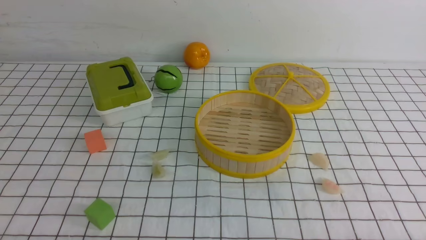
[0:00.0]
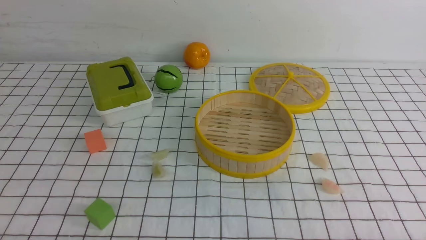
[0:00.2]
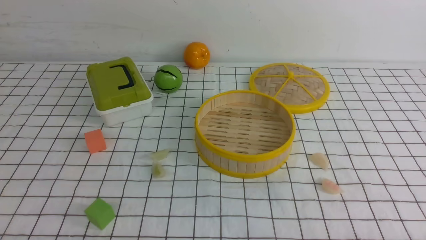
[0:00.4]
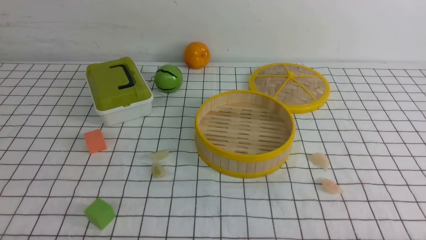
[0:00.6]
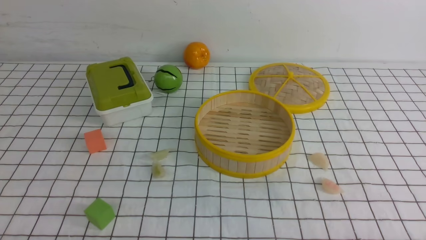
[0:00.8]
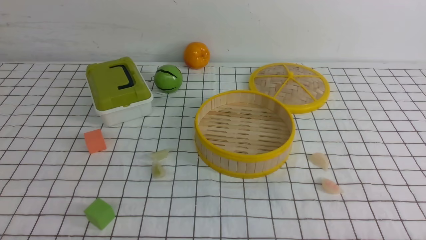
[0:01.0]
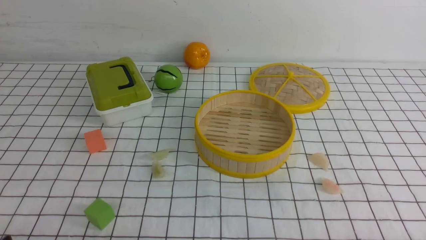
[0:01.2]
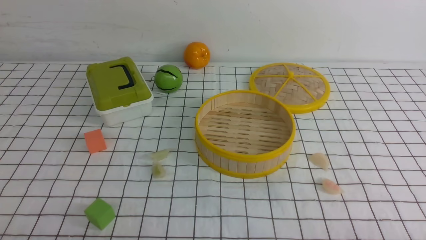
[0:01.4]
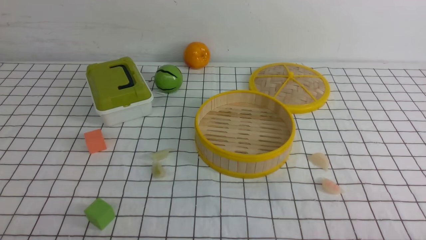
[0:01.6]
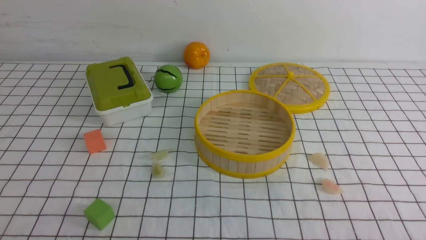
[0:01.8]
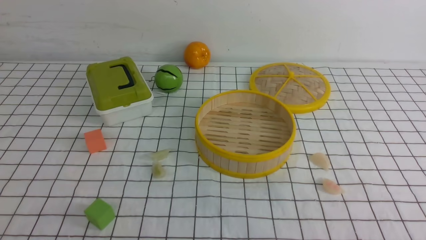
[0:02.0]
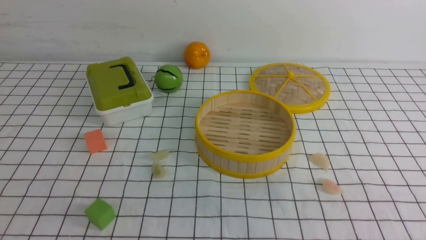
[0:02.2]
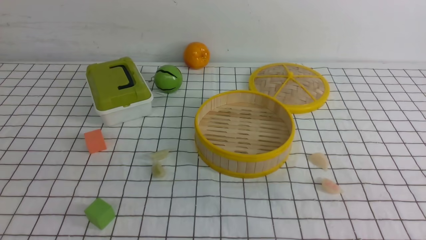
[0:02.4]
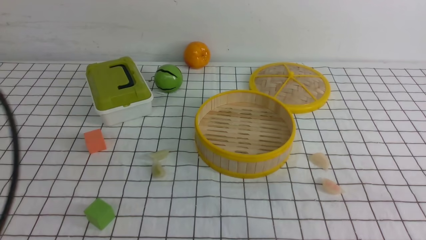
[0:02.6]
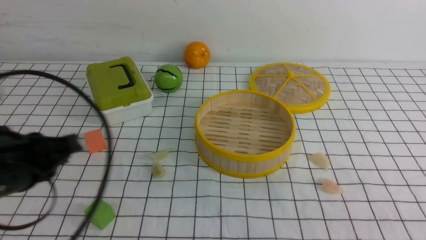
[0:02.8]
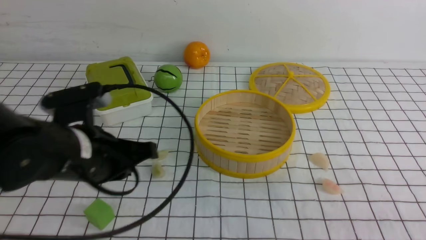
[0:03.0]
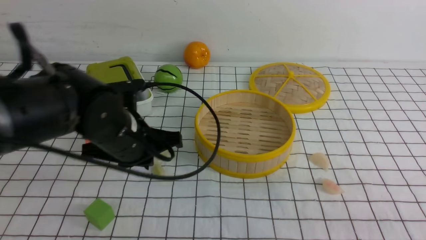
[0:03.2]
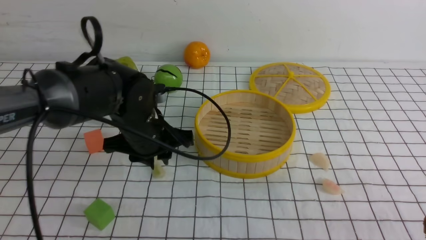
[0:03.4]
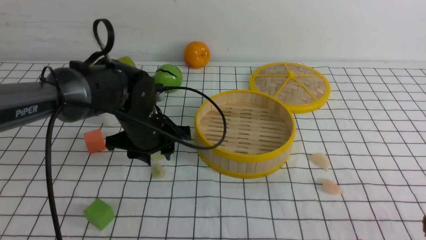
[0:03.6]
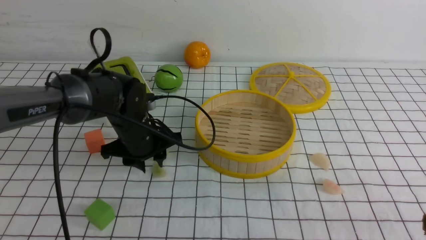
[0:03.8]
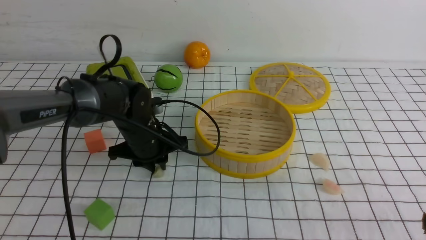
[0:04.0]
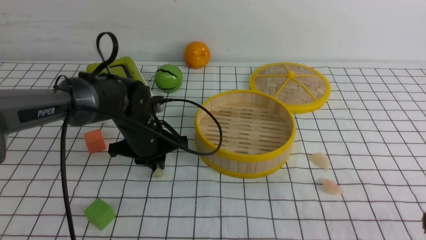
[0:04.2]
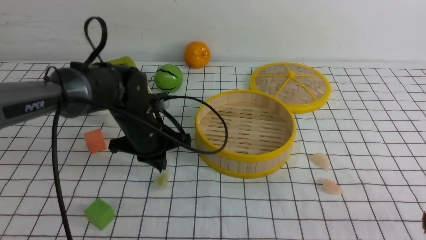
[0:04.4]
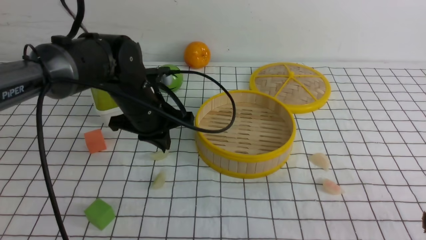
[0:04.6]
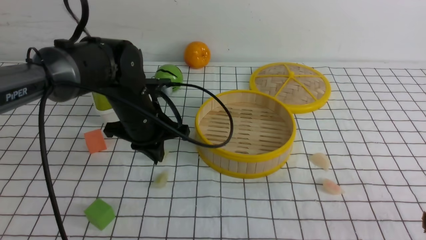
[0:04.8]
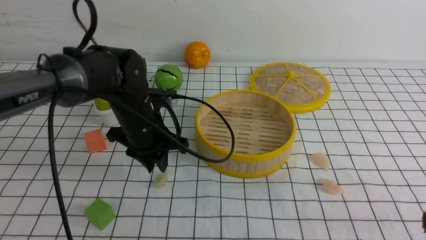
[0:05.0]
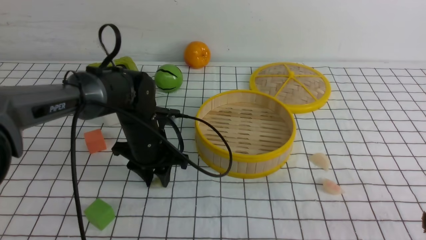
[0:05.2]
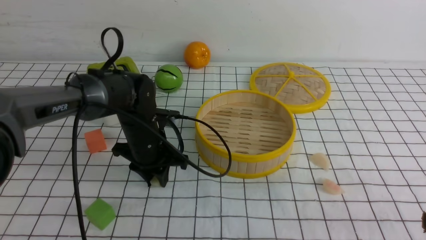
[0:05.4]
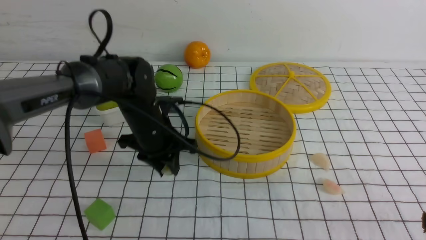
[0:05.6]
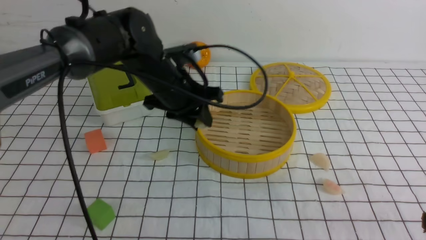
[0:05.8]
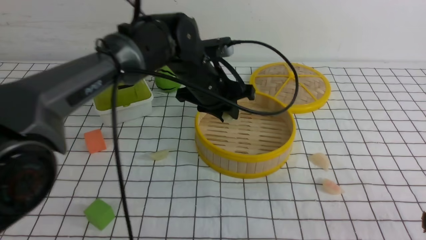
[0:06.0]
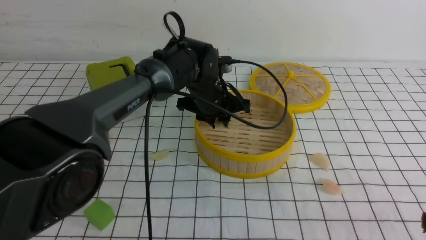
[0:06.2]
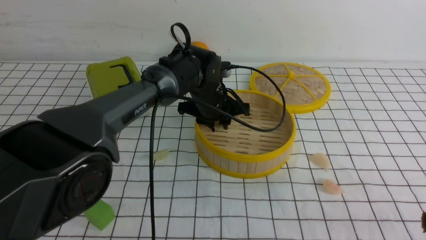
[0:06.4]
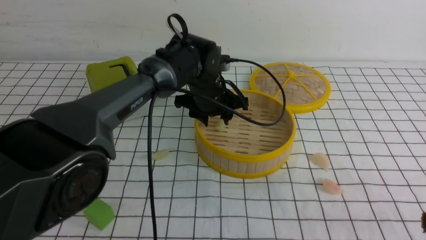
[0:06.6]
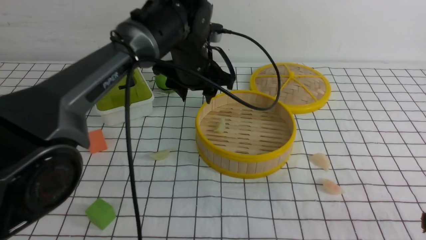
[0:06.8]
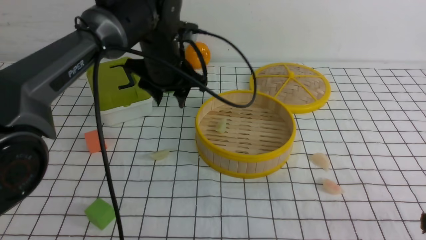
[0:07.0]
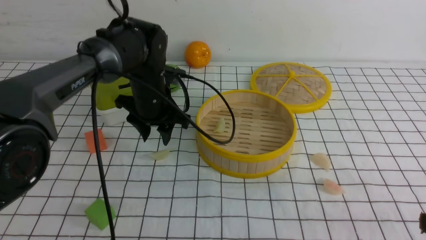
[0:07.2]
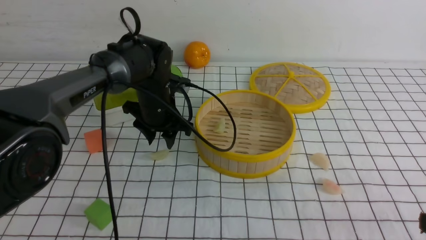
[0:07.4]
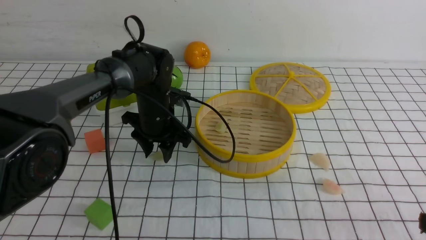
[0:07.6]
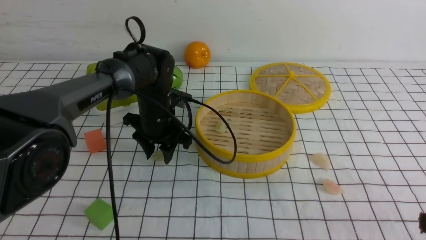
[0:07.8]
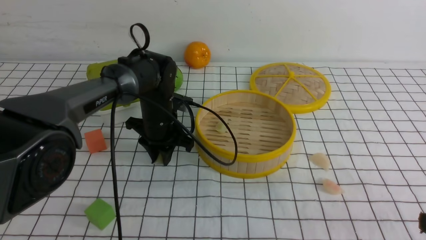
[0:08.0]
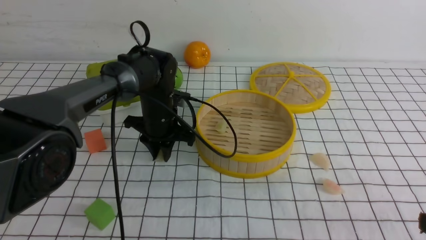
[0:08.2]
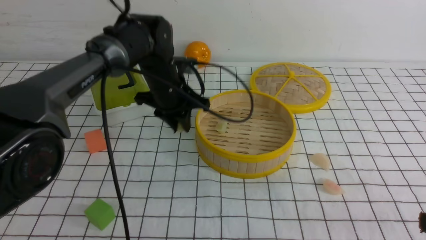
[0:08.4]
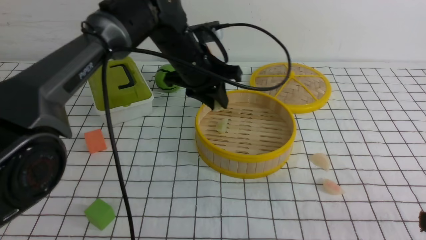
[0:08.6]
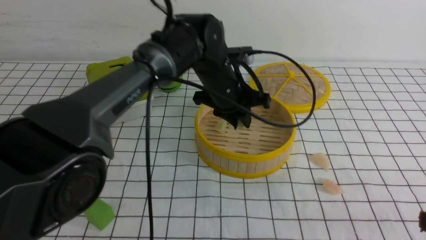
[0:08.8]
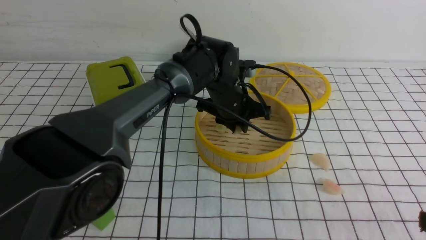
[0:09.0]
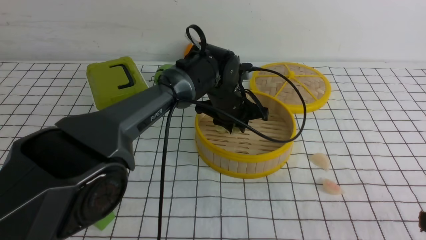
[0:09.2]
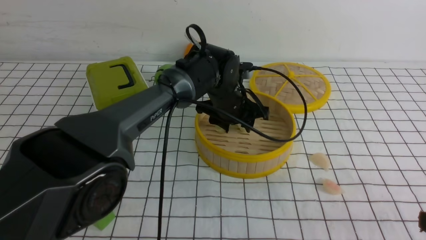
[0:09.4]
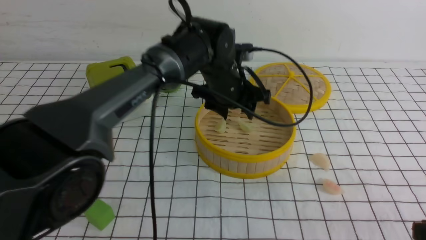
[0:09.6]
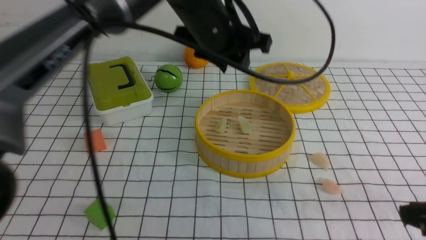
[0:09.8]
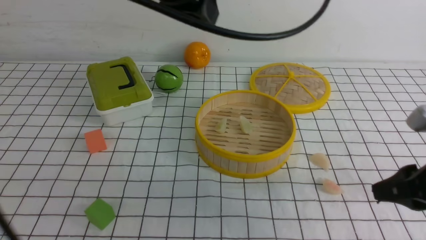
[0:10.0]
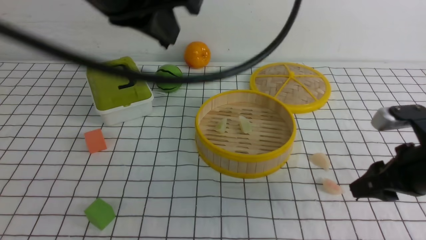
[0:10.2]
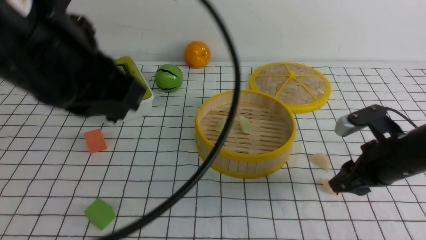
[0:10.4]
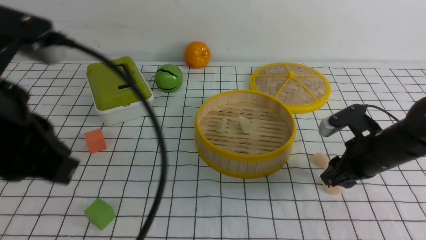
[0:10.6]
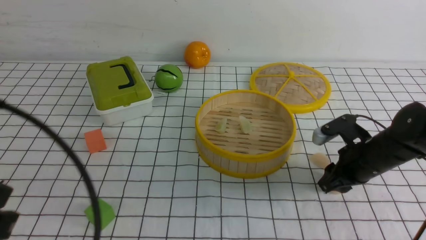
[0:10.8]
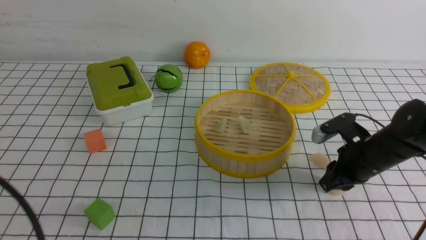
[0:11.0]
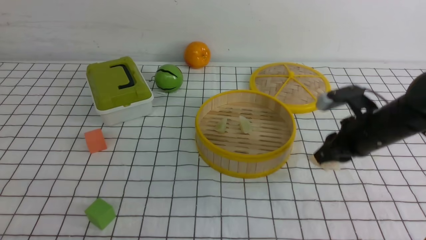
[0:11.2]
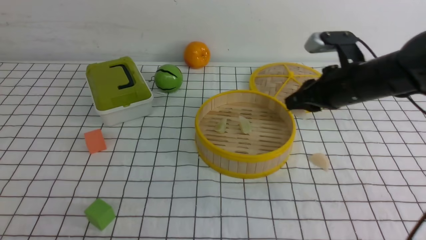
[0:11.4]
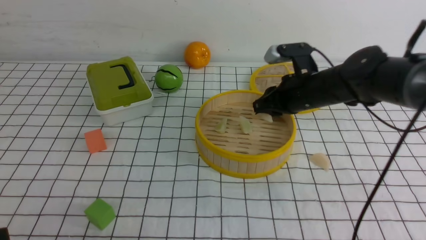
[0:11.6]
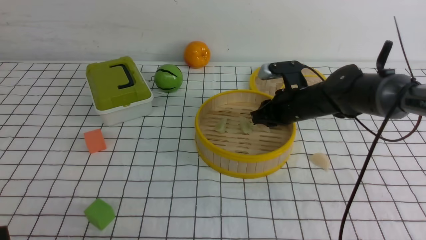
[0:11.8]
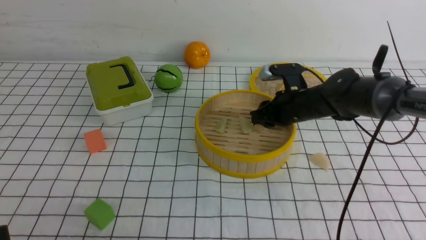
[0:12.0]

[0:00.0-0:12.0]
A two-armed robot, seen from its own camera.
Task of the whole recording: put the dumplings into the steamer on the table with the white tablecloth.
Step, 0:00.0 to 0:05.6: use the left arm to grab a dumpling.
Step, 0:05.8 to 0:06.8: use the left arm to put the dumpling into the steamer.
Step, 0:07.0 to 0:08.4: use the left arm to grab a dumpling.
Step, 0:08.6 to 0:09.8: use the left arm to put the dumpling into the steamer.
Step, 0:10.0 to 0:11.2: use the right arm to grab a dumpling.
0:01.6 to 0:03.0: The left gripper moves forward and to the right, some 25 cm, and closes. Meanwhile the right gripper goes roughly 5 cm forward, and closes its fingers.
0:03.0 to 0:04.4: The left gripper is displaced forward and downward by about 15 cm, and opens, then closes once more.
0:04.4 to 0:06.0: The left gripper goes approximately 10 cm to the right, and opens up.
0:06.0 to 0:07.6: The left gripper travels to the left and downward by about 10 cm, and opens up.
0:07.6 to 0:09.0: The left gripper goes about 15 cm to the right, and closes up.
0:09.0 to 0:10.4: The right gripper travels forward by approximately 20 cm, and opens its fingers; the left gripper is displaced backward, upward and to the left by about 35 cm, and closes up.
0:10.4 to 0:12.0: The left gripper is displaced downward, backward and to the left by roughly 25 cm; the right gripper is displaced forward and to the left by approximately 20 cm.

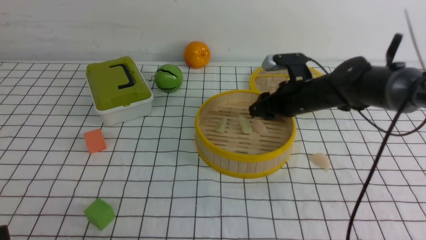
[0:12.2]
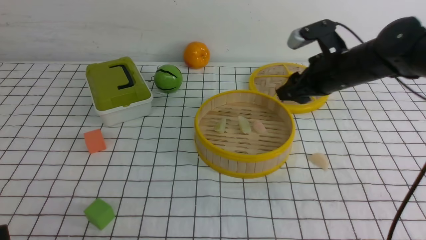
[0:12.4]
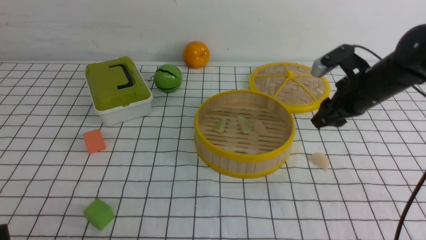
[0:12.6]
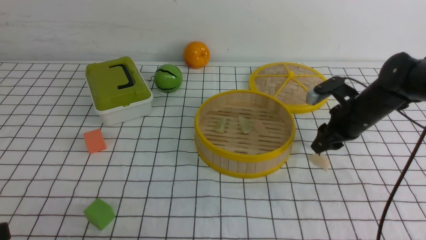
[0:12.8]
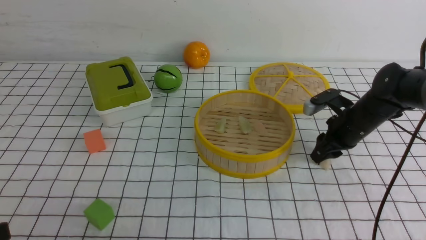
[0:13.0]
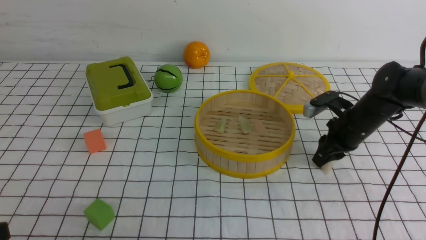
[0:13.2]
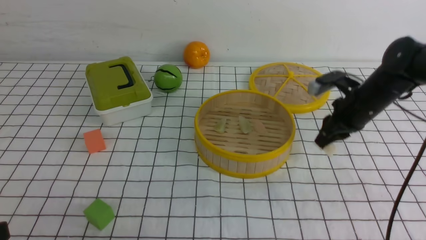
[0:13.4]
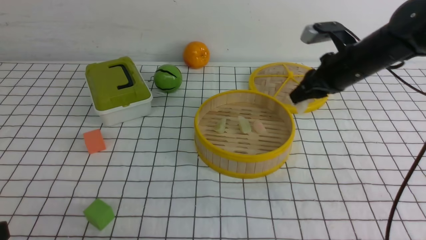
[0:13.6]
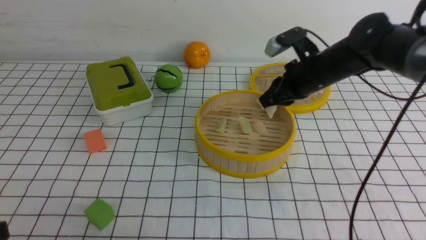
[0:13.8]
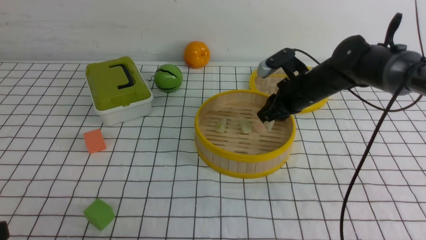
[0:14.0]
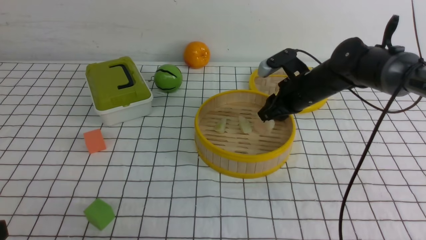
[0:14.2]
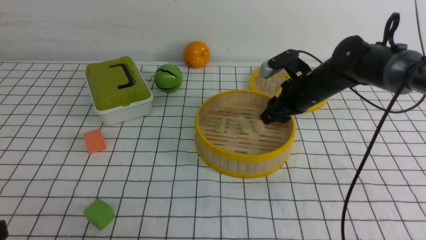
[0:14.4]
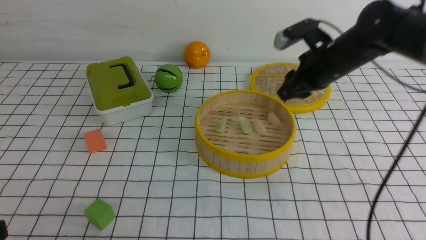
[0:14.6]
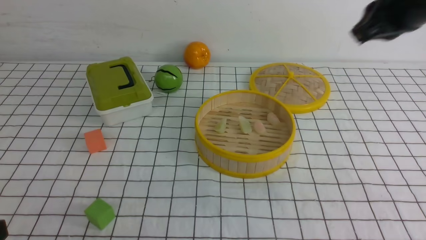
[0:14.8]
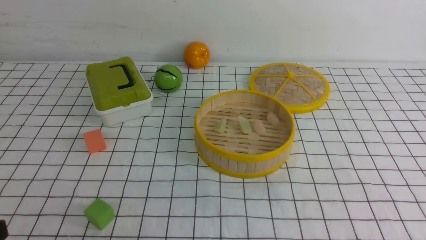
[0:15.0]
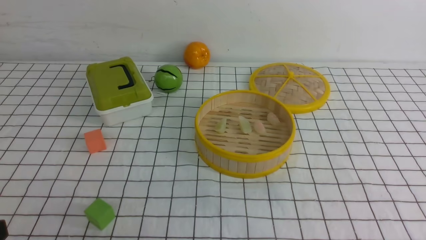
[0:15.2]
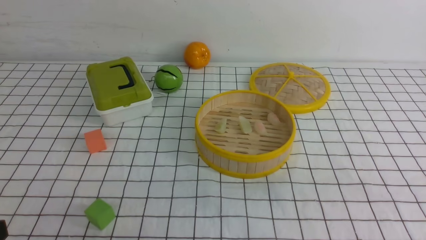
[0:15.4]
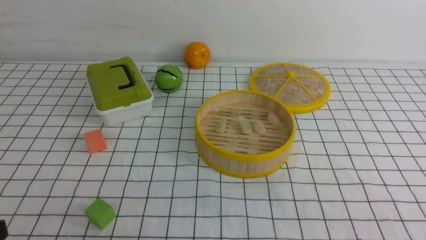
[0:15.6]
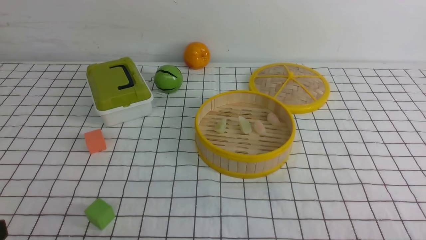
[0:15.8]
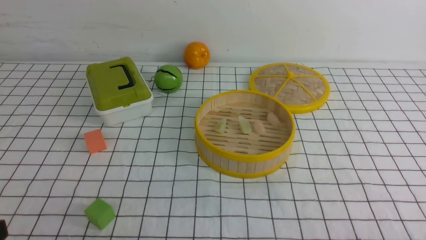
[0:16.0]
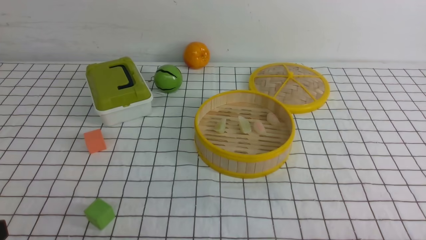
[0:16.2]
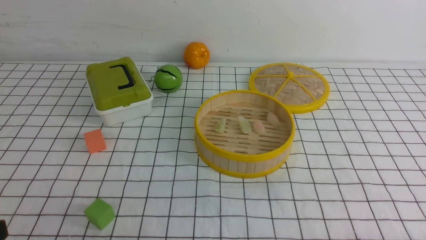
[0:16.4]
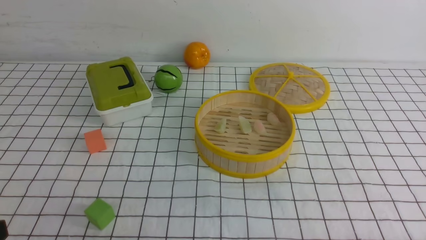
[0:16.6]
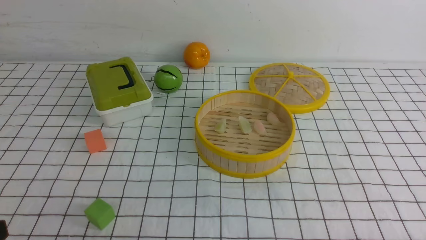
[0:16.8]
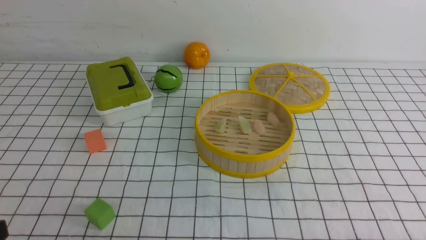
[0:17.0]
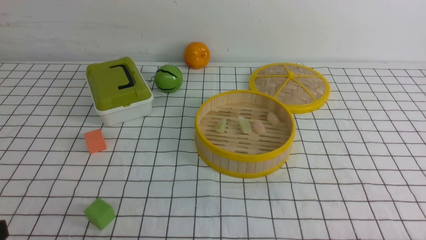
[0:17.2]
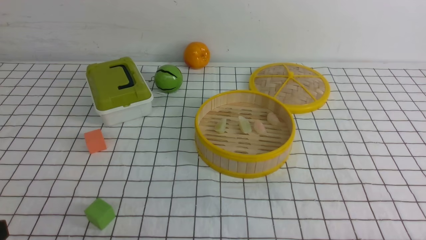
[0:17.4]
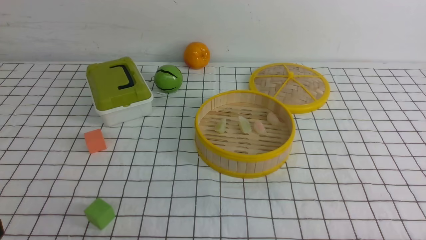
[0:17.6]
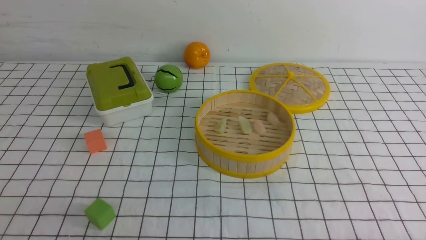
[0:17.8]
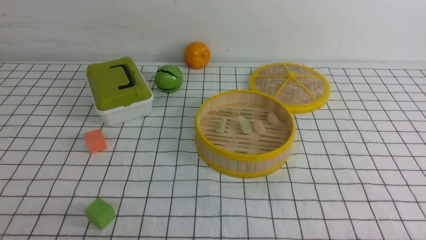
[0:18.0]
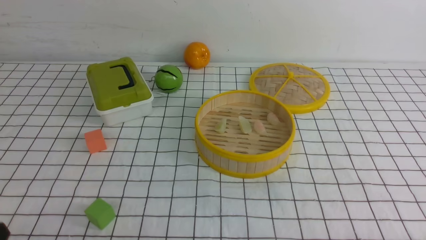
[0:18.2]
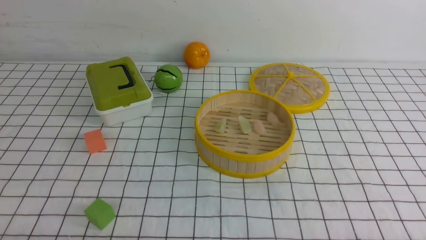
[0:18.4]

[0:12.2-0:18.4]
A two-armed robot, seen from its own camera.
Task of the whole recording: put the dumplings into the steamer on the table with the white tablecloth.
Step, 0:12.6 to 0:13.6: use the right arm to grab a dumpling.
Step, 0:14.0 to 0:14.8: use the right arm to put the dumpling into the steamer.
0:12.2 to 0:13.8: The right gripper goes downward and returns, some 5 cm each way, and closes up.
0:13.8 to 0:15.4: The right gripper heads backward, covering about 40 cm, and closes.
